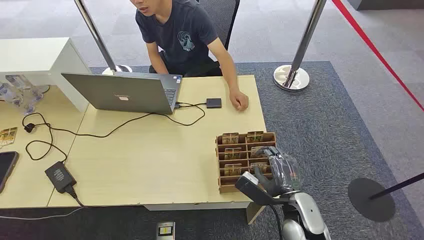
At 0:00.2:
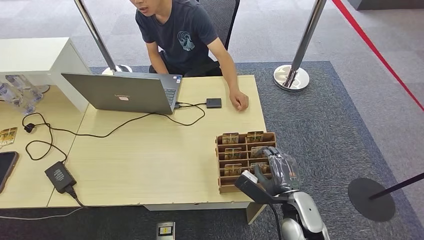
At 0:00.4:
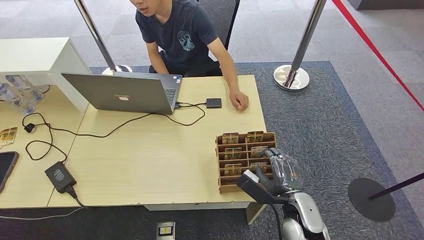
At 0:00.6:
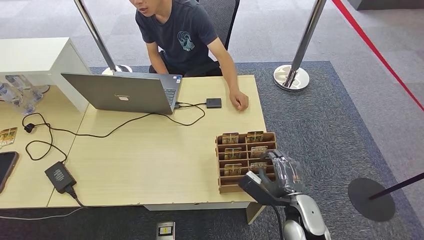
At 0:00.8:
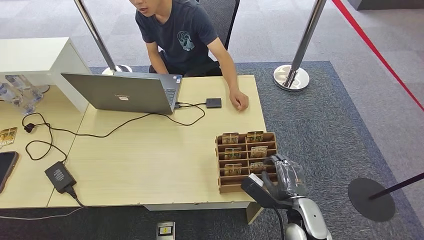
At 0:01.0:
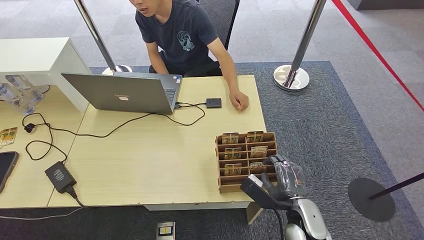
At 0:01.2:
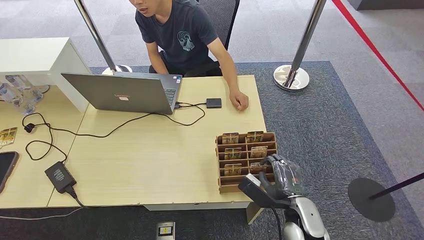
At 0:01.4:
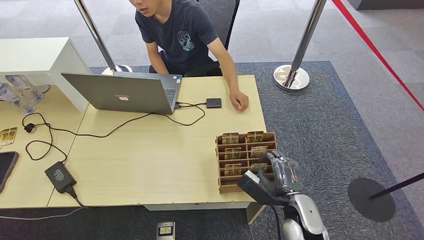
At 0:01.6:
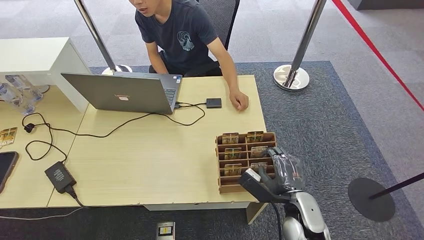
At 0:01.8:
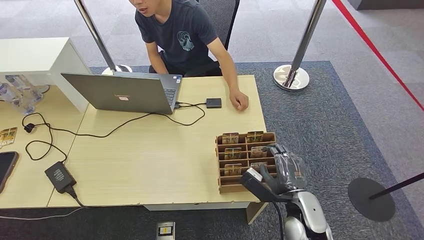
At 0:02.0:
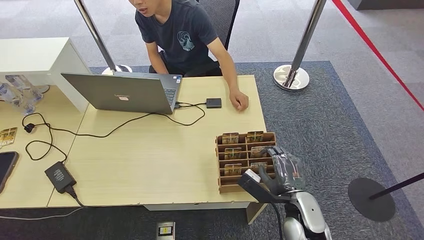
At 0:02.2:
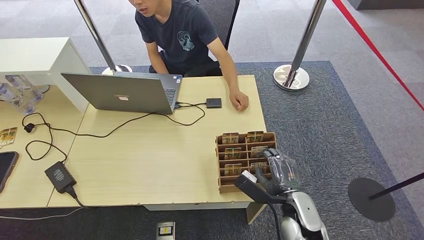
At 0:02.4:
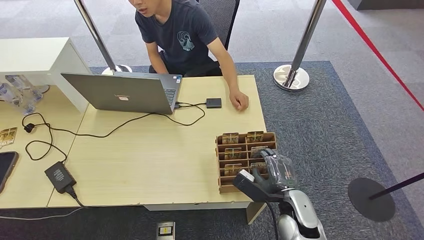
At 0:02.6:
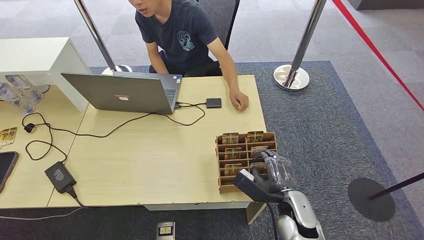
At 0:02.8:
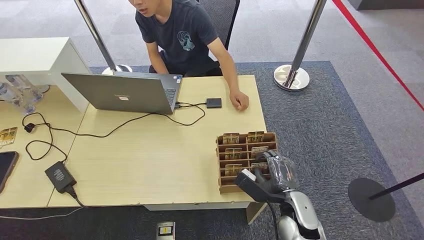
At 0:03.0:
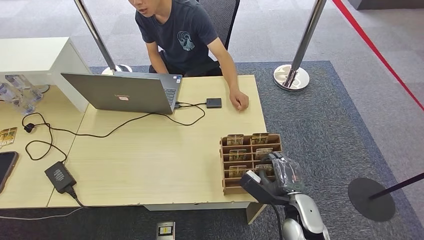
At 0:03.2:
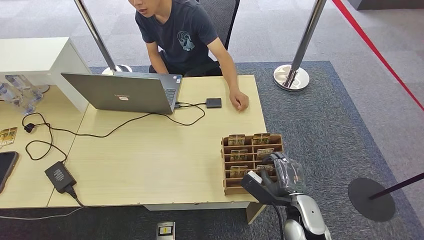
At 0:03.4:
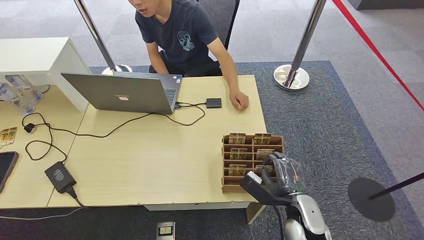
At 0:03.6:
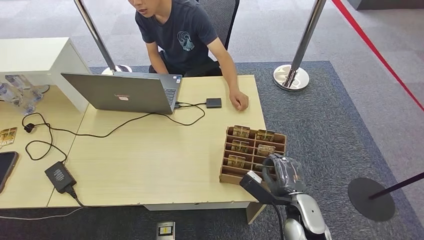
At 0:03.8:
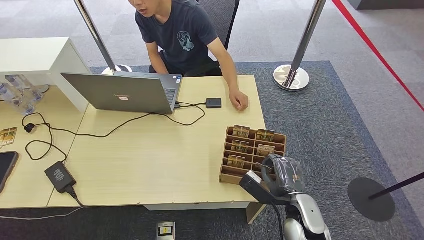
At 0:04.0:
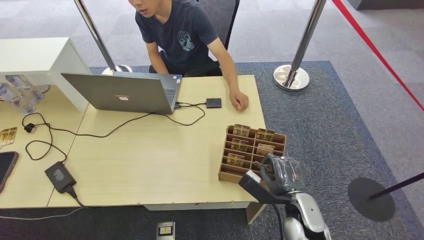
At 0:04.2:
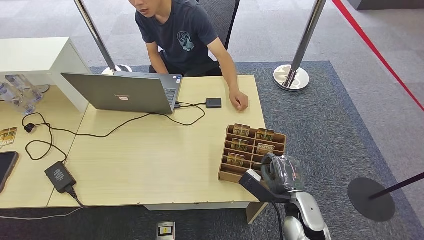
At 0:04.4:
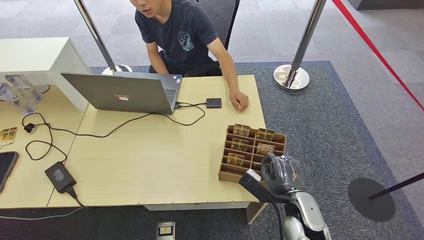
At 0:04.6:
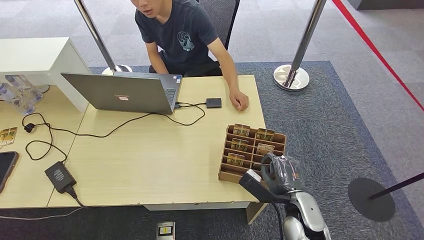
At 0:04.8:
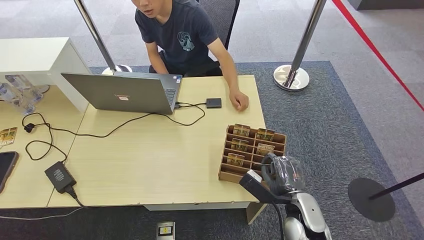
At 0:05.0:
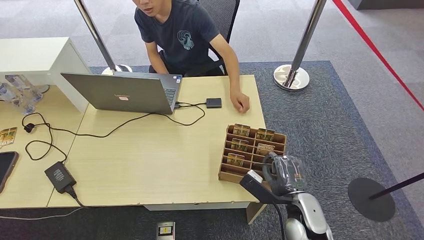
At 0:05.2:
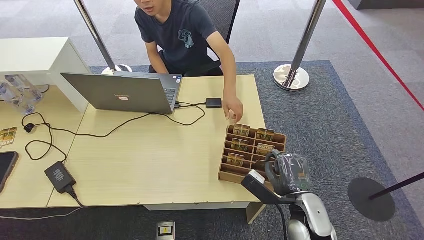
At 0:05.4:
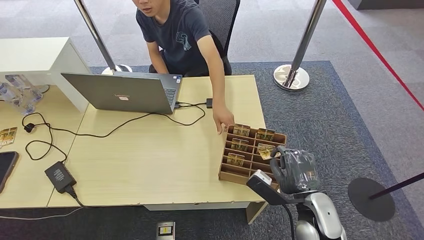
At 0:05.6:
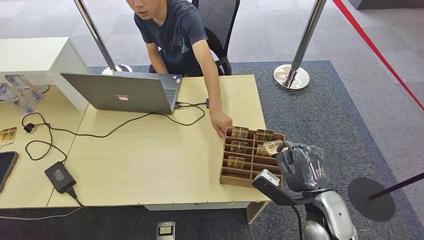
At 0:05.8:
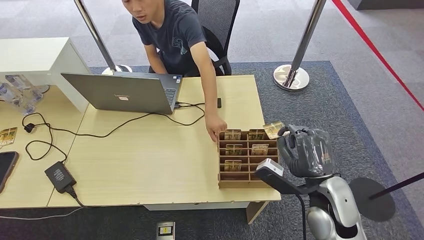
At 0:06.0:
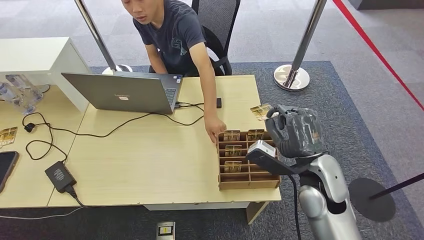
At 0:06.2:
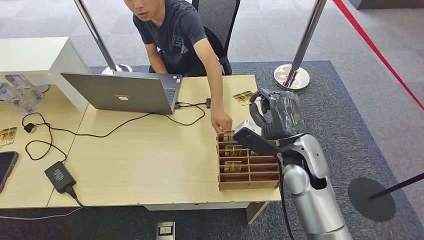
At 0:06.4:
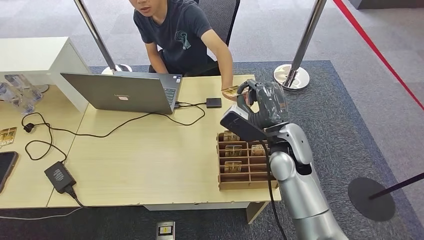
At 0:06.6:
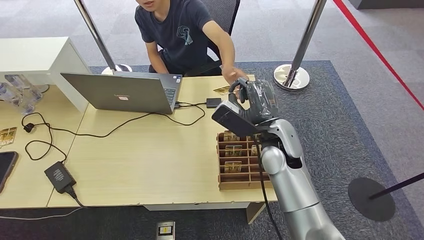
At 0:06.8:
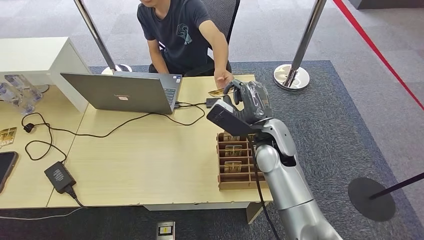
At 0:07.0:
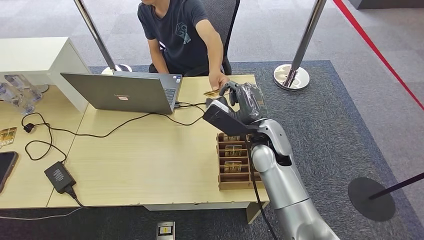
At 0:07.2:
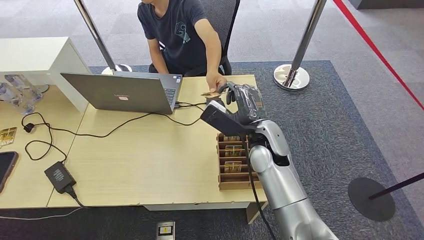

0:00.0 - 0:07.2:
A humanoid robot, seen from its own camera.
Step, 0:00.0 - 0:05.6: Pick up the key card from the card box.
Step, 0:05.8 - 0:07.2: Hand the key card to the target.
0:01.4 - 0:04.4: Both hands stay about where they are.
0:04.4 - 0:05.8: The right hand travels upward by approximately 10 cm.
0:05.8 - 0:07.2: The right hand goes roughly 15 cm forward and to the left.

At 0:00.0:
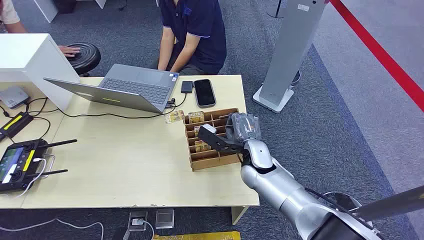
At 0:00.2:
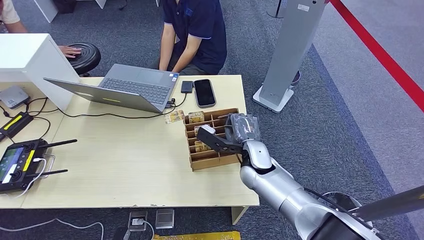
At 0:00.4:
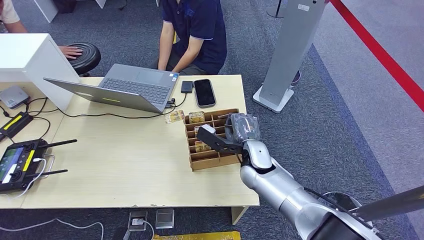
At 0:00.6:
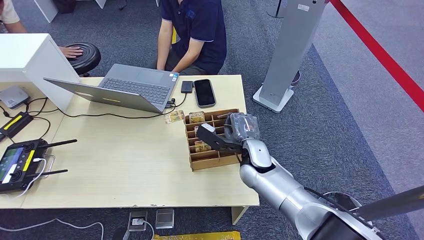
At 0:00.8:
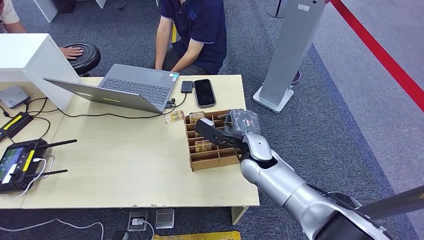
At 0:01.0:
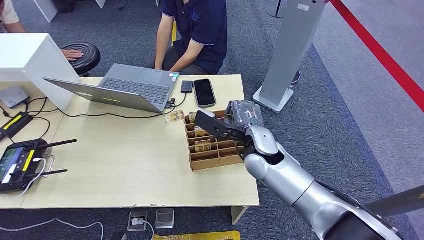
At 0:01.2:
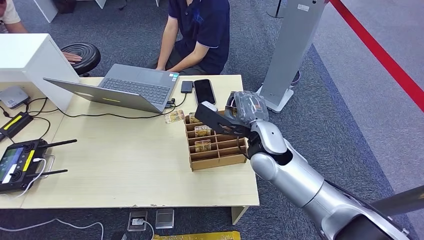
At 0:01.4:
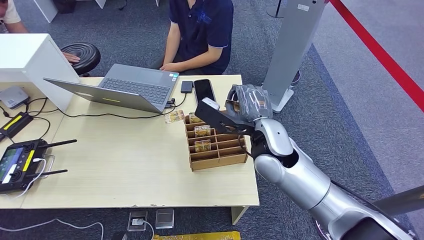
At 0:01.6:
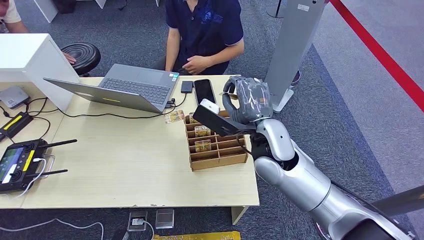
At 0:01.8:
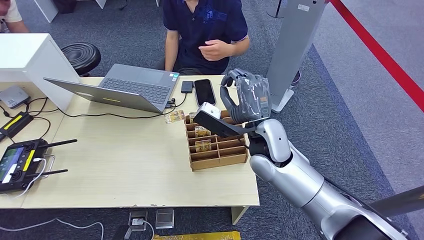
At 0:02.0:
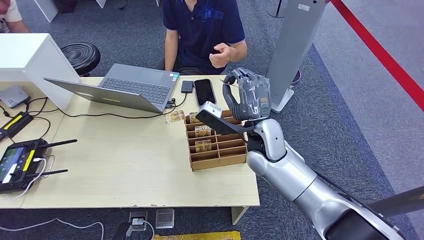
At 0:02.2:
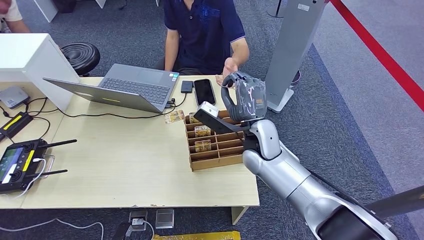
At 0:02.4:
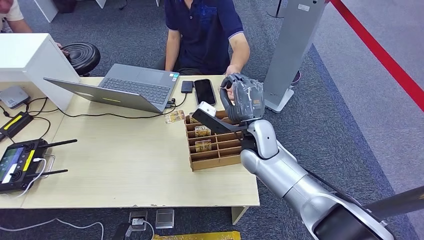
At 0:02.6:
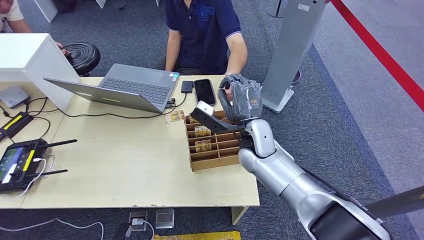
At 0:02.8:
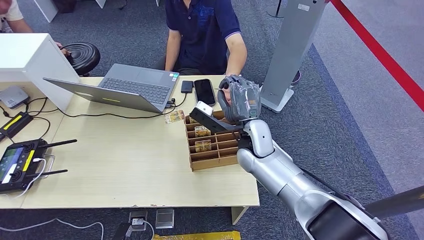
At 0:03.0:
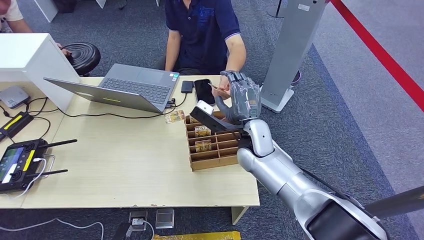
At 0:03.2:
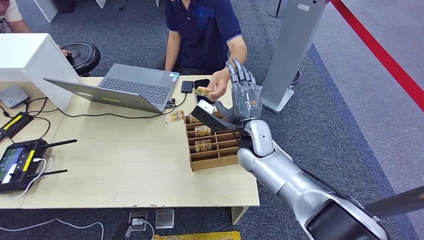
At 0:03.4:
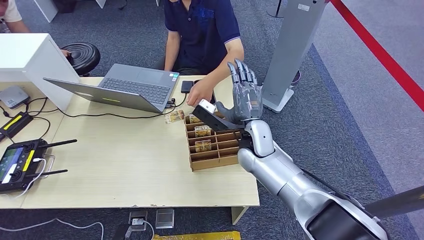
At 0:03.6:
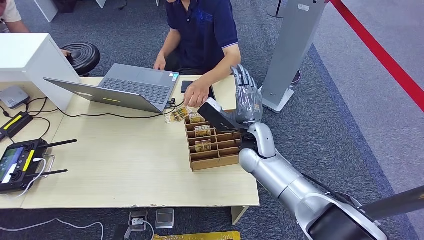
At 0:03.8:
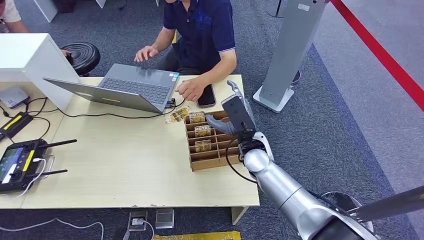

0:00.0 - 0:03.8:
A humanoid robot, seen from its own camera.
Step, 0:00.0 - 0:01.2: Pick up the key card from the card box.
Step, 0:01.4 - 0:03.6: Hand the key card to the target.
